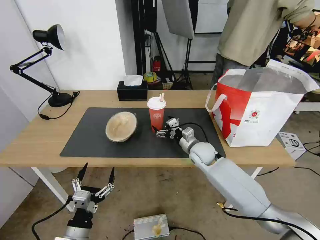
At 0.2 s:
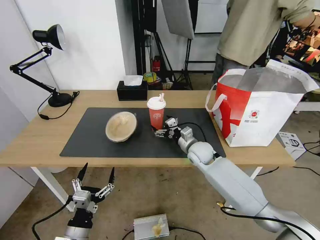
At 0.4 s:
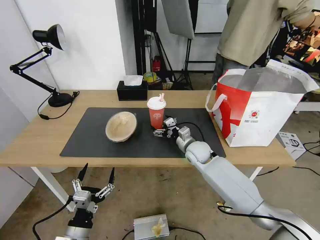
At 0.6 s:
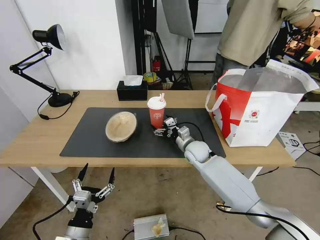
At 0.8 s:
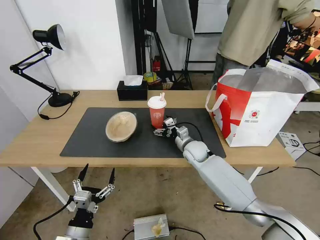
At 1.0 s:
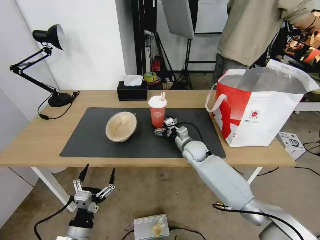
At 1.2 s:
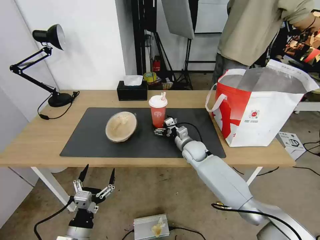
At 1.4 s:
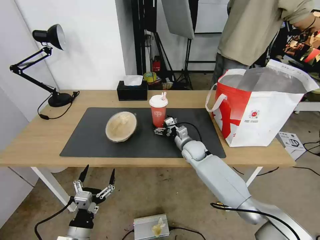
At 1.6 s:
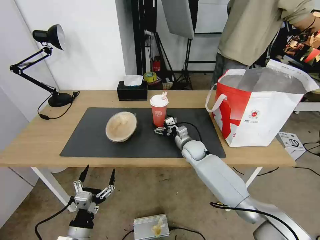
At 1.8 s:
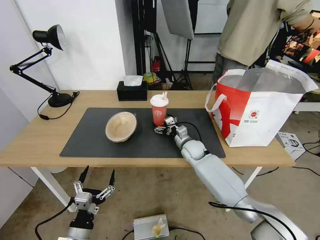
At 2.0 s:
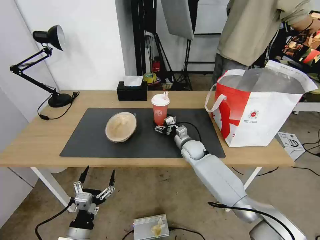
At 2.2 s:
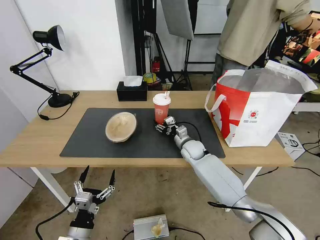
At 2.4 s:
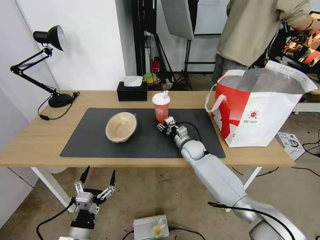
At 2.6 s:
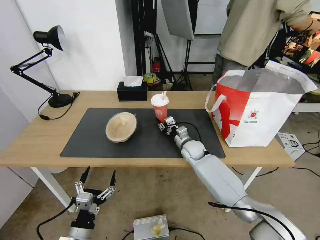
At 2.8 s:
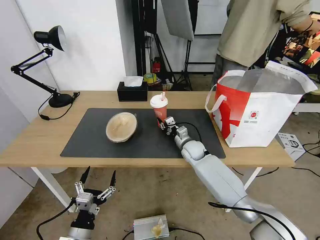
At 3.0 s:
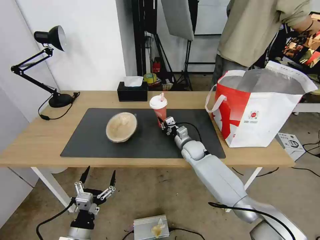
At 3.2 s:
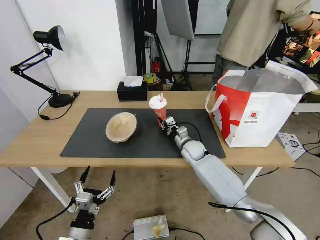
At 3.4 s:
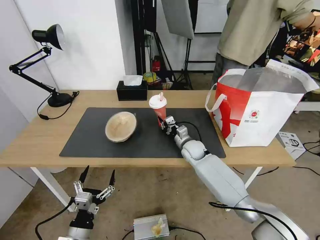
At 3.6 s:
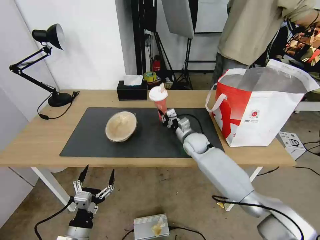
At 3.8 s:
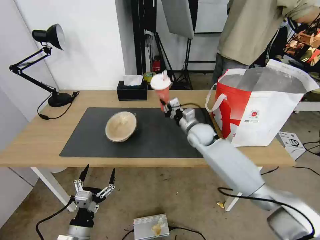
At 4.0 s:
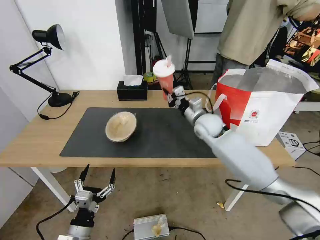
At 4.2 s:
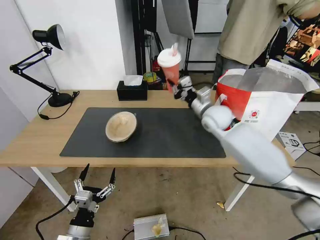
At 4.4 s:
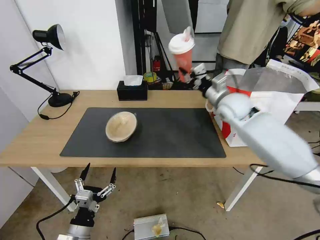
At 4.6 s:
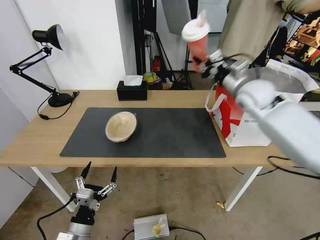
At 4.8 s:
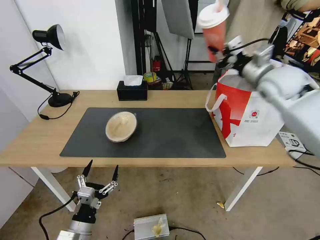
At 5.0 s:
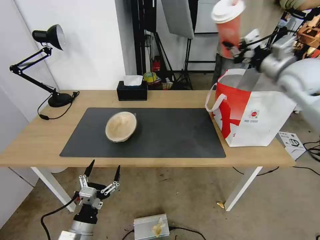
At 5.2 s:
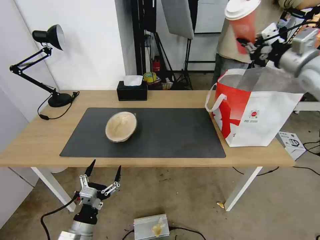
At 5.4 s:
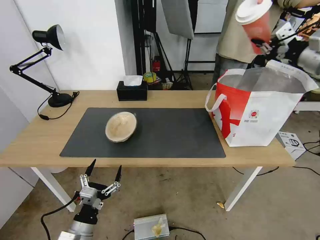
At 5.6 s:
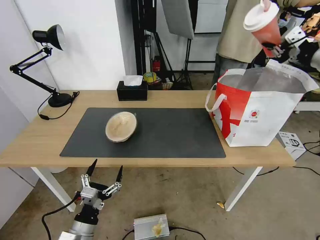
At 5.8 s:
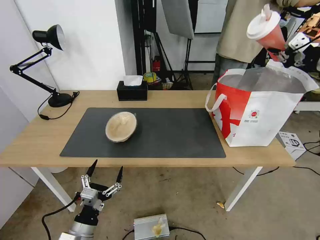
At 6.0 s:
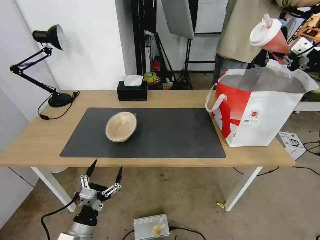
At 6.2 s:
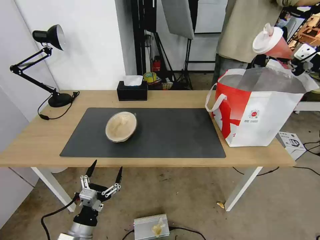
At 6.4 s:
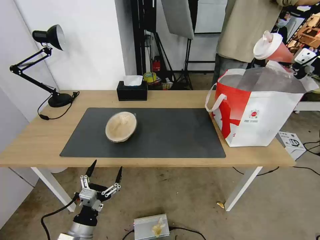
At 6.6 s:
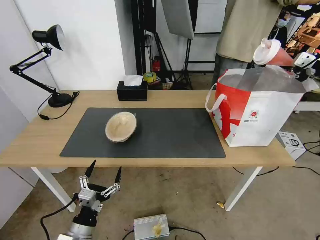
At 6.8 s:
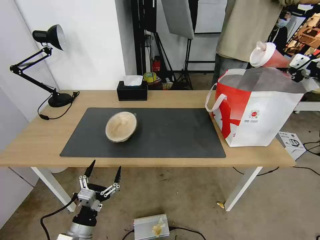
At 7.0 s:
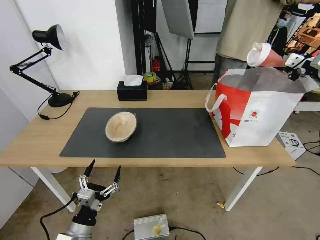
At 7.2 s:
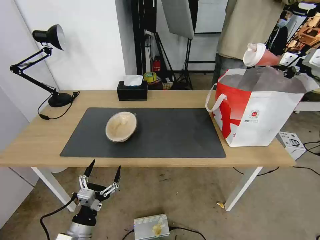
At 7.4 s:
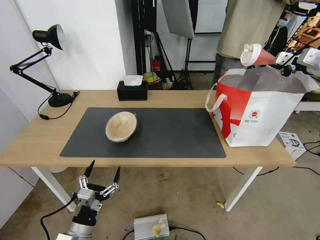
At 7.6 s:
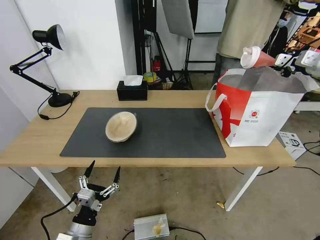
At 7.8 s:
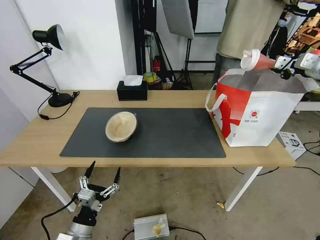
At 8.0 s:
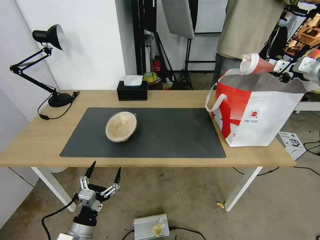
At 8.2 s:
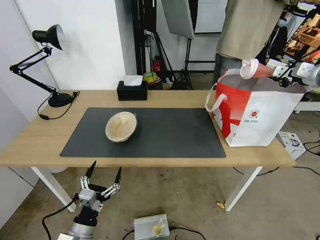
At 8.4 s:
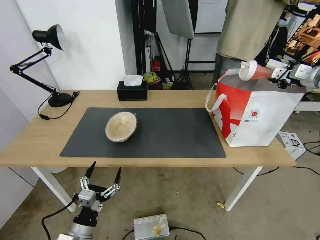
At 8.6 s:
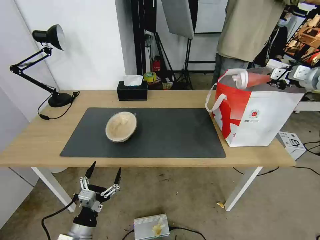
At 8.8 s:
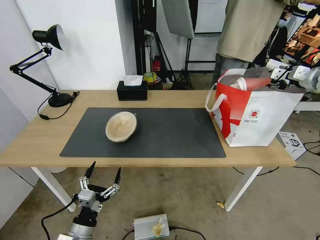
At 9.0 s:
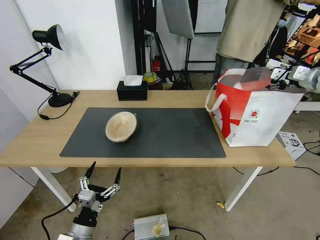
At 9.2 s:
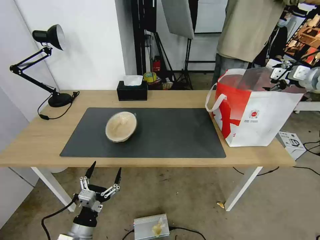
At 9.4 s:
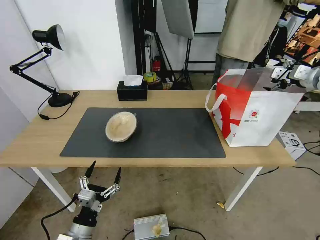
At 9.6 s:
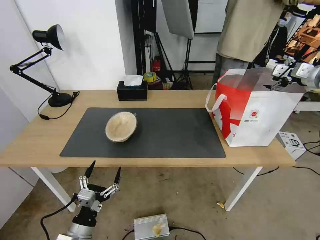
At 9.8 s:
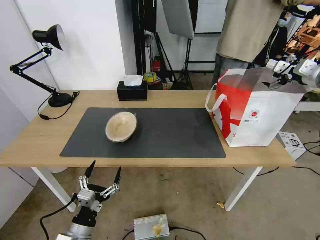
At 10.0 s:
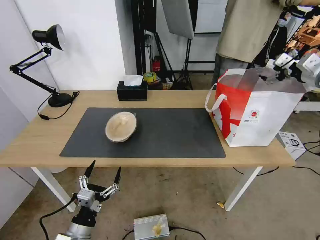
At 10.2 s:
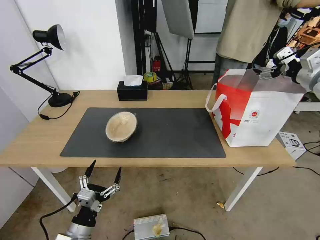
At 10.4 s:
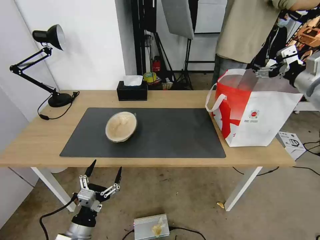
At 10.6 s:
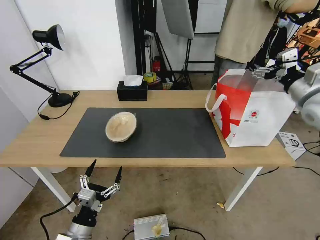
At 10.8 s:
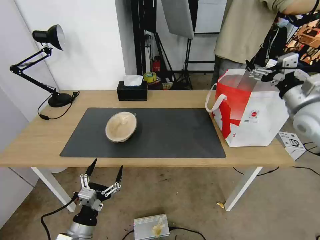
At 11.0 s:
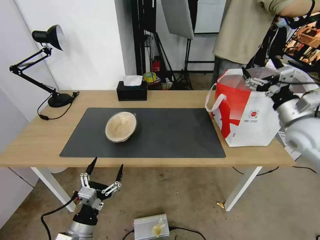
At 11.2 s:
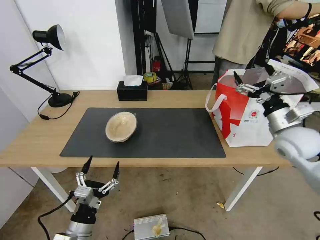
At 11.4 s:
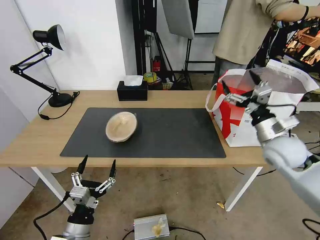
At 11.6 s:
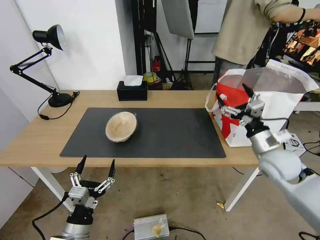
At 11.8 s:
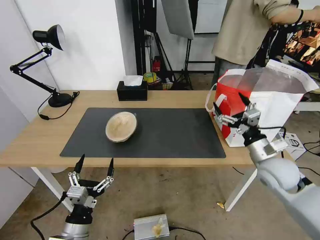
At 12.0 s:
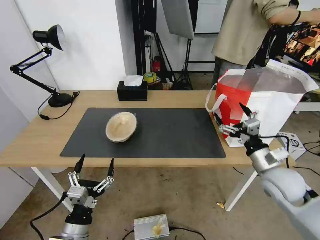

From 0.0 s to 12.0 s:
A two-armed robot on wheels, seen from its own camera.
Task of the whole recording: Pick up the trash from the table and place it into the takeout bag.
From 0.0 s to 1.6 s: The right gripper ends up roughly 5 cm from where it was.
From 1.6 s to 3.0 s: The right gripper closes its fingers.
From 3.0 s to 4.4 s: The right gripper is displaced upward by approximately 20 cm.
From 4.4 s to 6.0 s: The right gripper goes roughly 30 cm to the right and upward.
From 6.0 s to 7.6 s: The right gripper shifts about 10 cm forward.
From 7.6 s to 9.0 s: The right gripper opens.
From 9.0 s to 10.4 s: The right gripper moves backward and to the left, about 10 cm.
From 10.4 s to 12.0 s: The right gripper moves downward, backward and to the left, roughly 25 cm.

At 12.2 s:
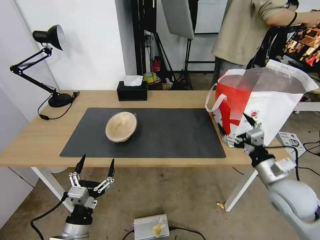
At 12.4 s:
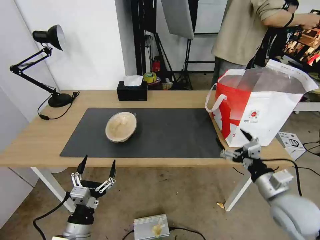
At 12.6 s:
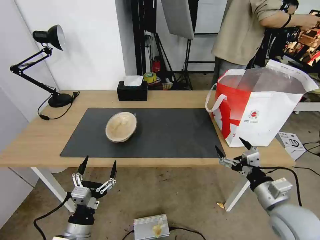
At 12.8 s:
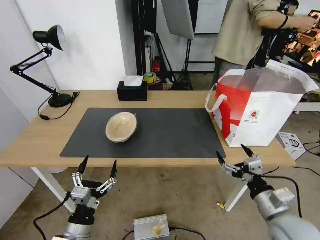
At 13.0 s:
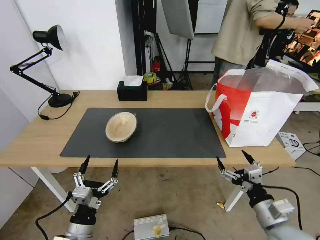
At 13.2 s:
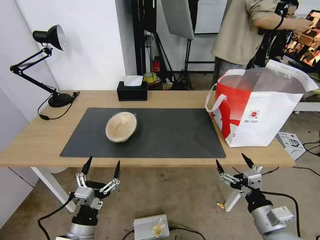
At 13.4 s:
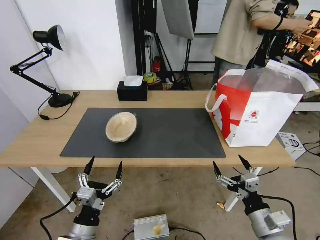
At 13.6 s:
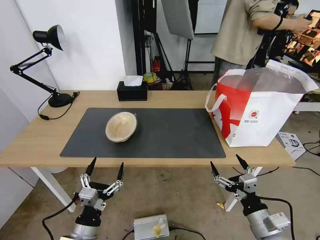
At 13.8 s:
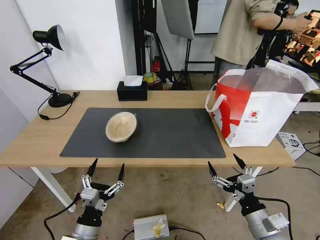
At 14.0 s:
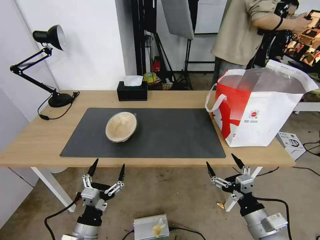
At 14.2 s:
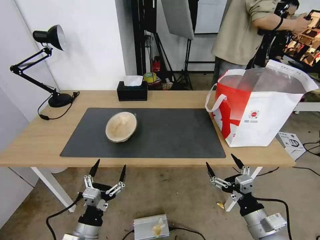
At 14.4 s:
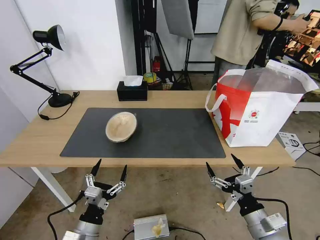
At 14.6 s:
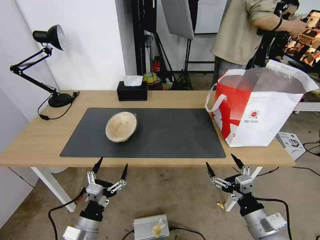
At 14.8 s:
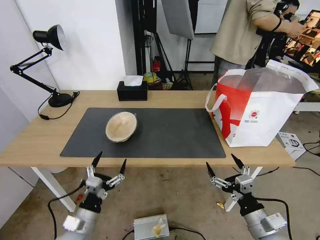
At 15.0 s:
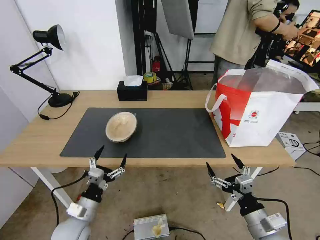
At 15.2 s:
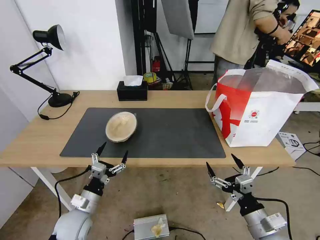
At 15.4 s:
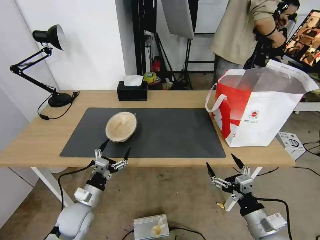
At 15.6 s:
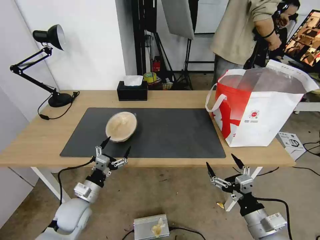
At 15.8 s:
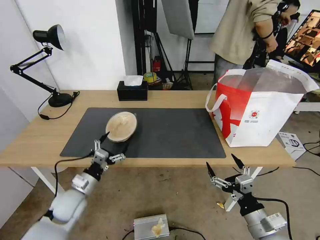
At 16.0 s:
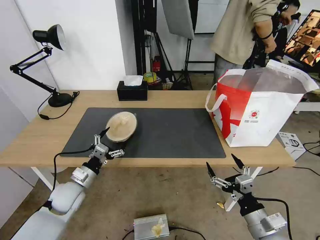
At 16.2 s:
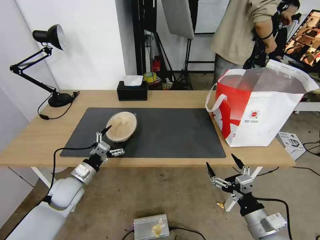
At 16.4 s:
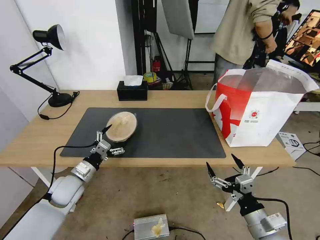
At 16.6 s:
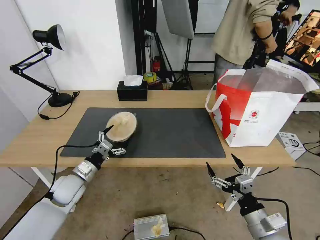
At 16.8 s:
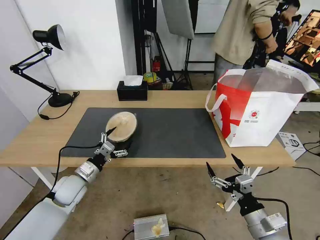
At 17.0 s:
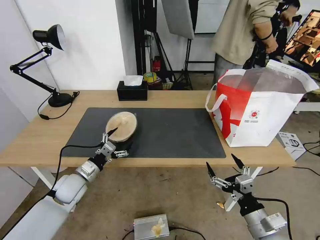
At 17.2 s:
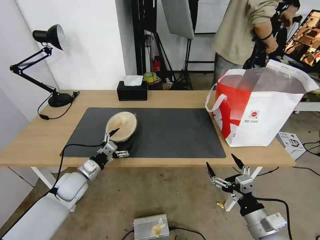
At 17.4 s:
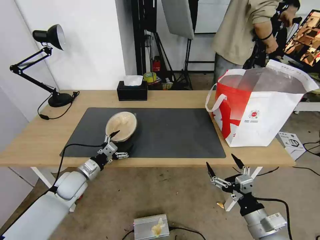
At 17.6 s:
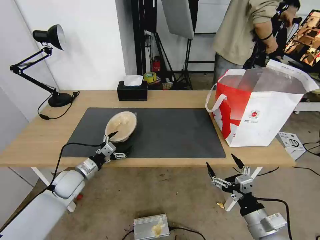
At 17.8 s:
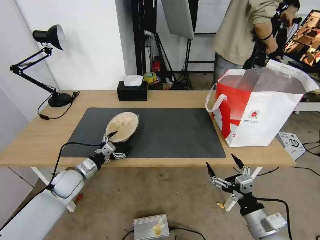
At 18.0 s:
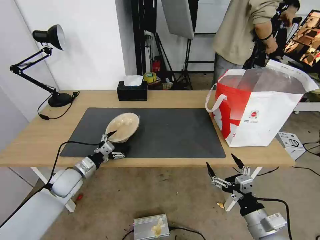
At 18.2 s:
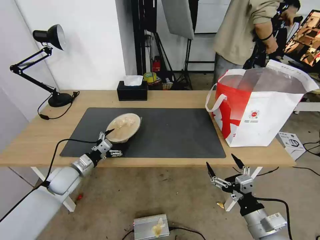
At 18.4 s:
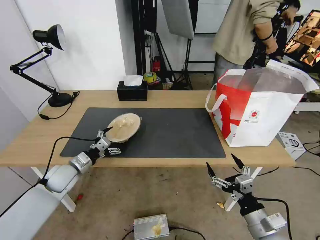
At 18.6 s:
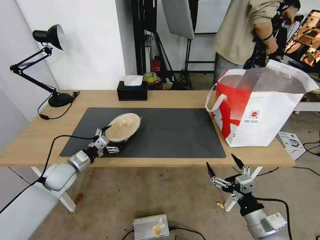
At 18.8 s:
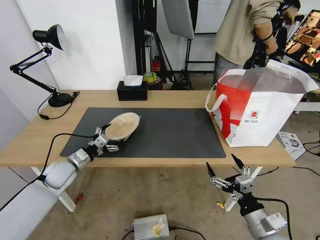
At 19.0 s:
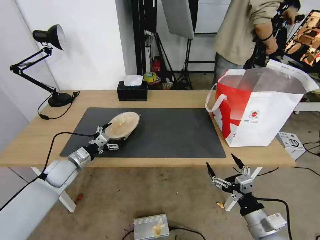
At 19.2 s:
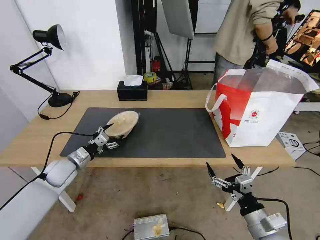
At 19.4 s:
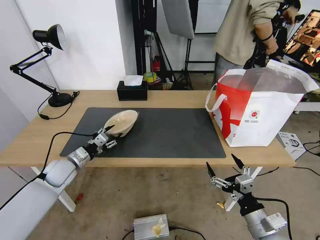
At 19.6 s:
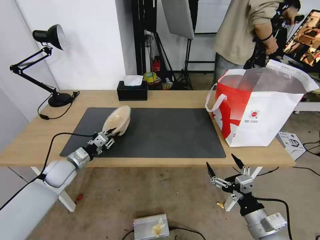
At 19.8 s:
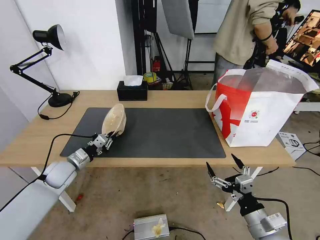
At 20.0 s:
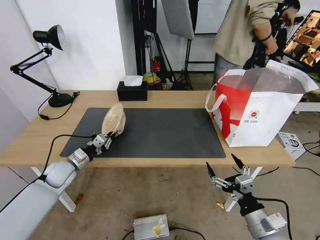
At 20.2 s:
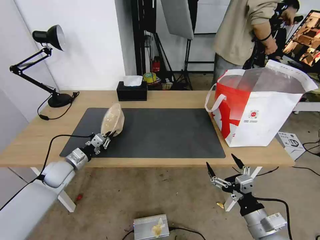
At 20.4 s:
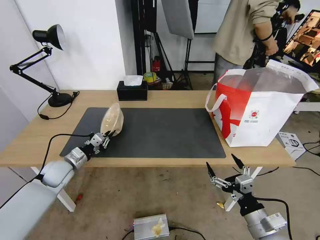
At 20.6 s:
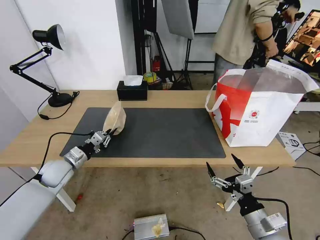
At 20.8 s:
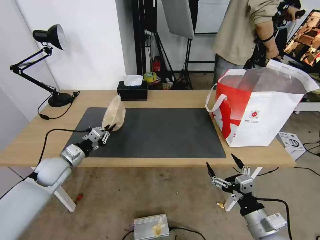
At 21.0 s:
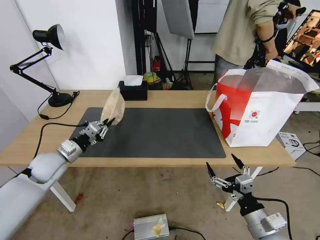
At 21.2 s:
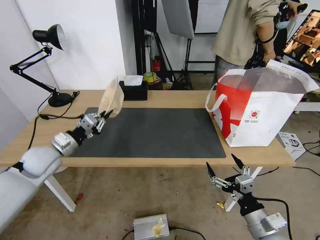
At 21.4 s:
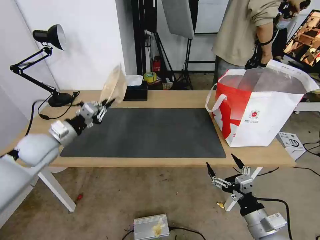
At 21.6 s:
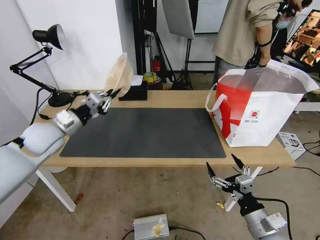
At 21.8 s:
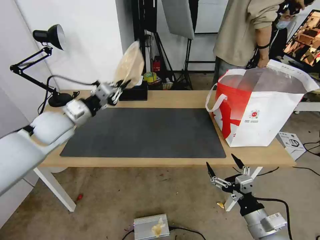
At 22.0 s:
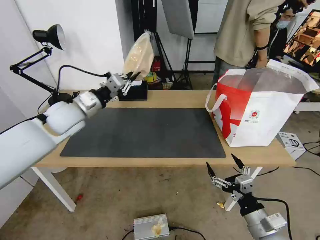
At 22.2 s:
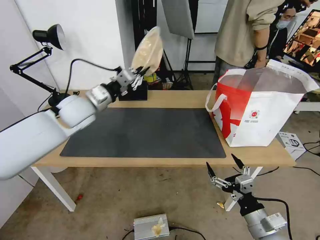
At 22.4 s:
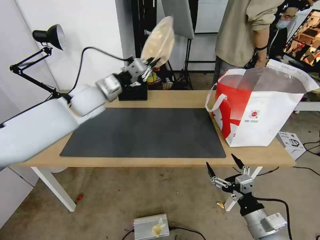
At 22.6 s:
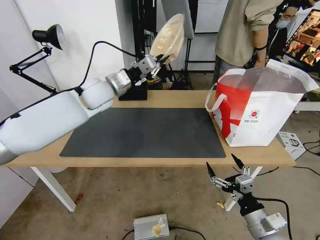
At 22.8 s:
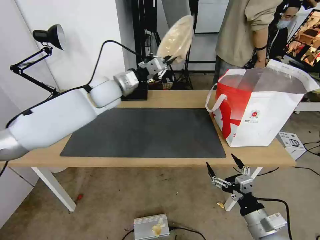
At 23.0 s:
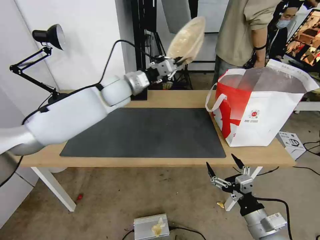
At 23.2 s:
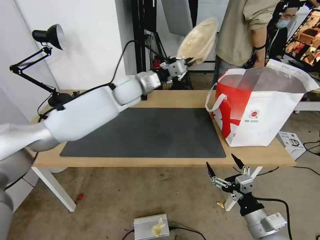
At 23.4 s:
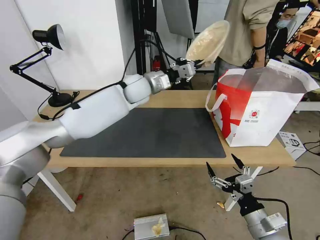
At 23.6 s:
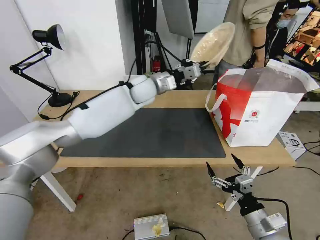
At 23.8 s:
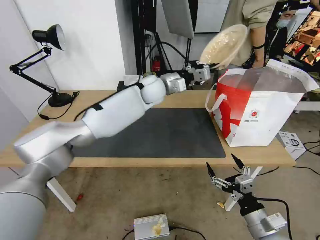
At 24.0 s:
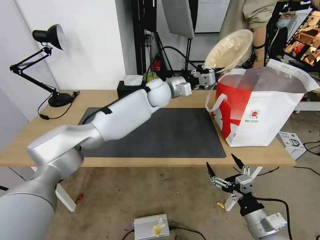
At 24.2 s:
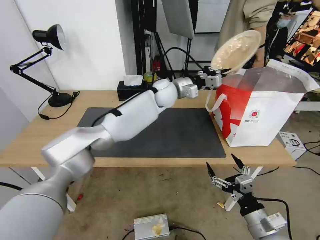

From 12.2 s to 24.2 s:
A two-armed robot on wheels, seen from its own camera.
Task of the whole recording: Pick up the trash from the table and place it into the takeout bag.
From 12.2 s to 13.8 s: The right gripper shifts about 15 cm backward, downward and to the left.
From 13.8 s to 15.2 s: The left gripper travels forward by some 10 cm.
From 15.2 s to 16.6 s: The left gripper shifts roughly 10 cm forward.
From 16.6 s to 18.2 s: The grippers stay close to where they were, moving slightly.
From 18.2 s to 19.8 s: The left gripper closes its fingers.
From 19.8 s to 21.2 s: The left gripper is displaced upward by approximately 10 cm.
From 21.2 s to 22.6 s: The left gripper travels to the right, upward and forward by approximately 25 cm.
From 22.6 s to 24.2 s: The left gripper moves to the right, approximately 20 cm.
